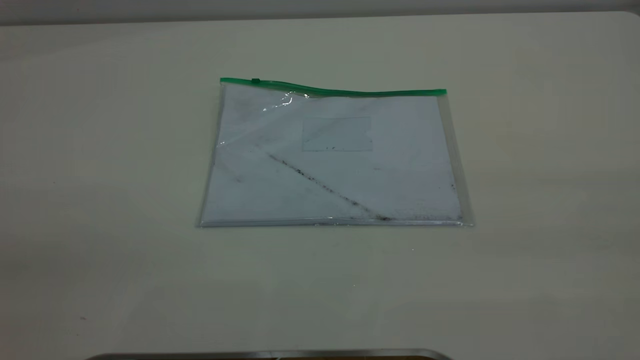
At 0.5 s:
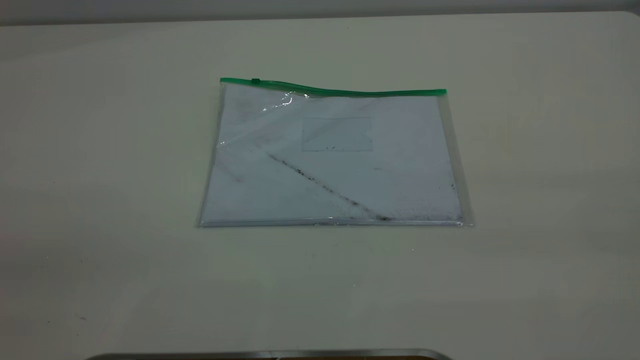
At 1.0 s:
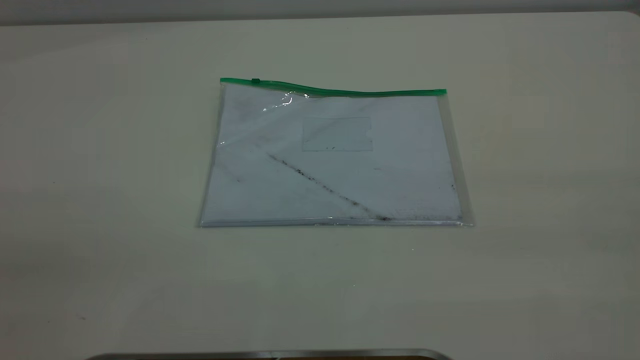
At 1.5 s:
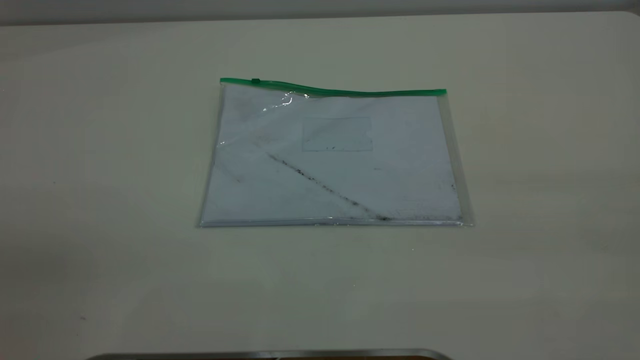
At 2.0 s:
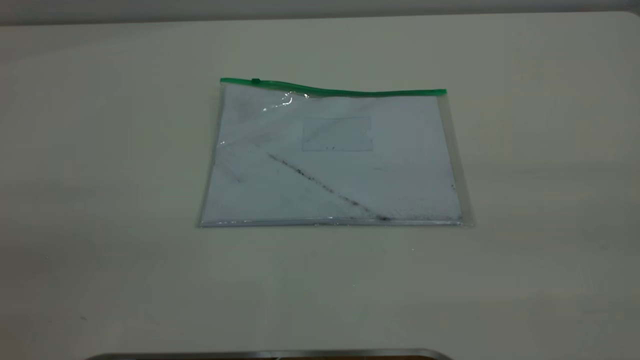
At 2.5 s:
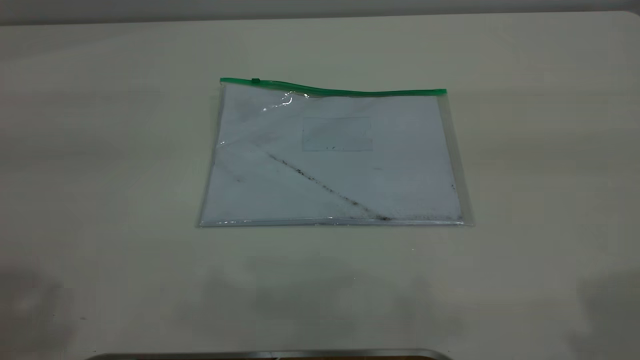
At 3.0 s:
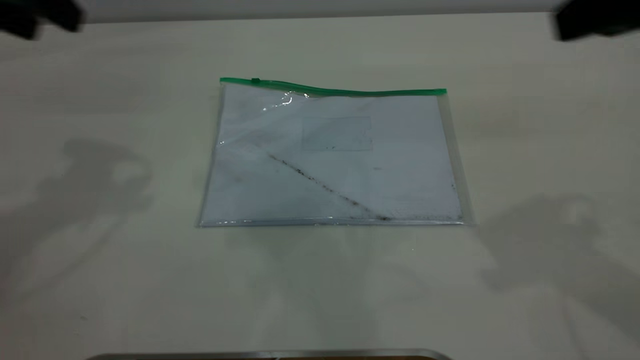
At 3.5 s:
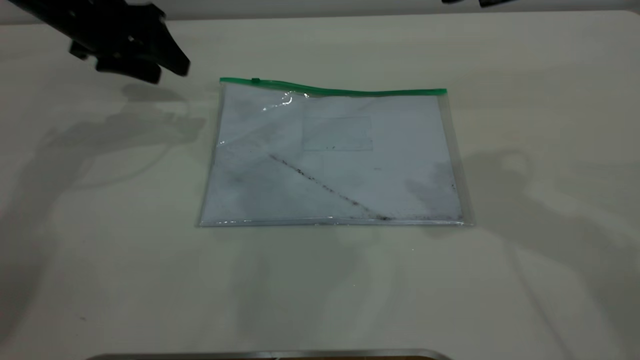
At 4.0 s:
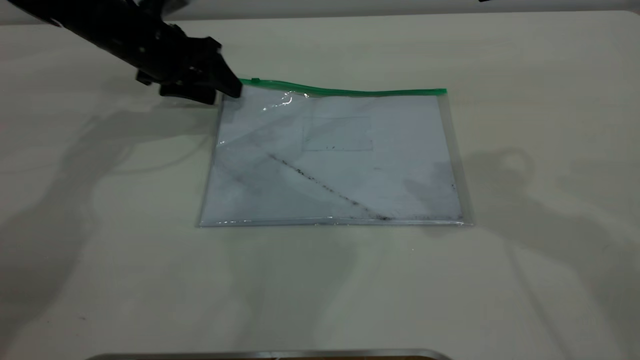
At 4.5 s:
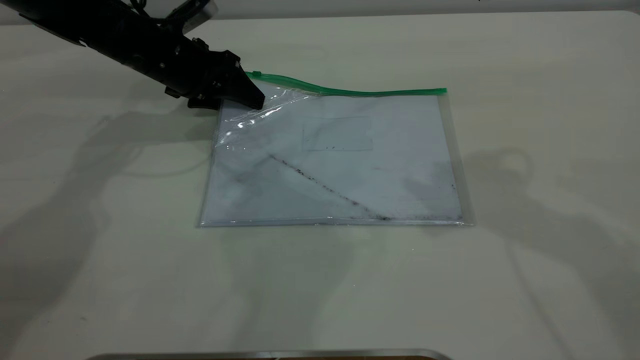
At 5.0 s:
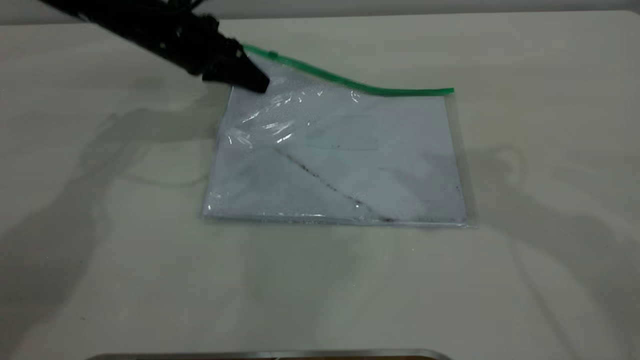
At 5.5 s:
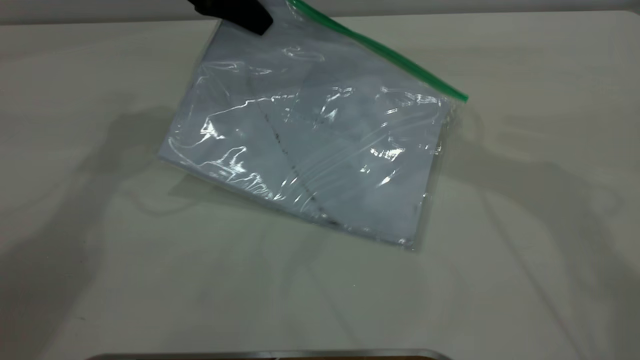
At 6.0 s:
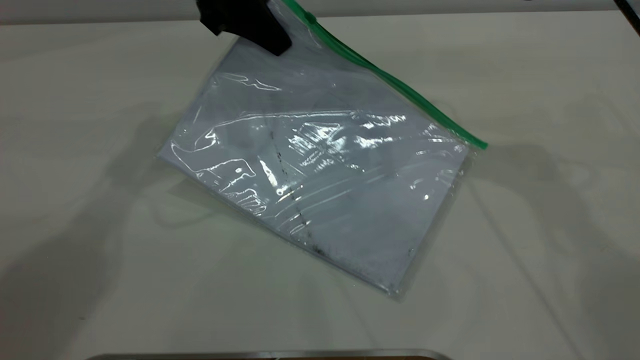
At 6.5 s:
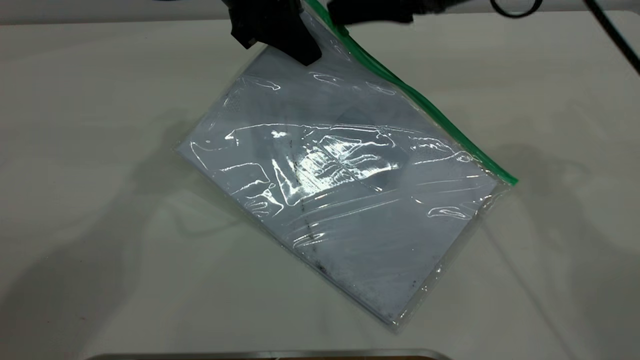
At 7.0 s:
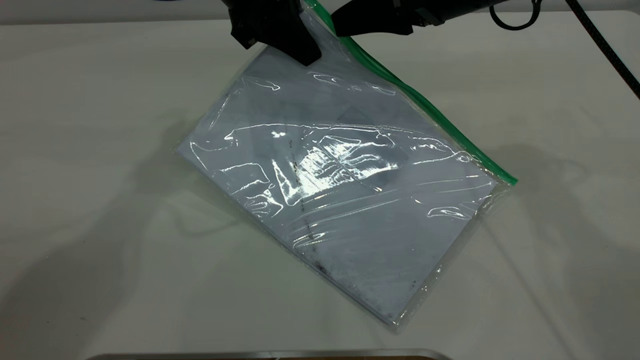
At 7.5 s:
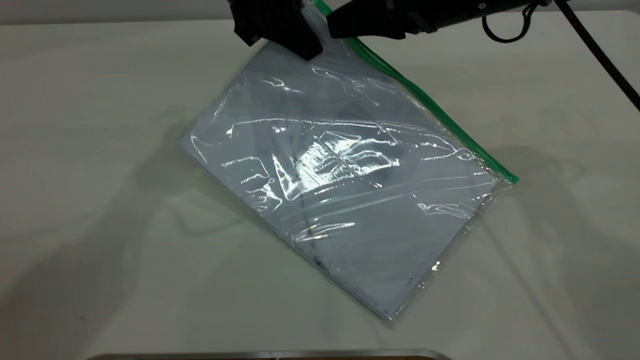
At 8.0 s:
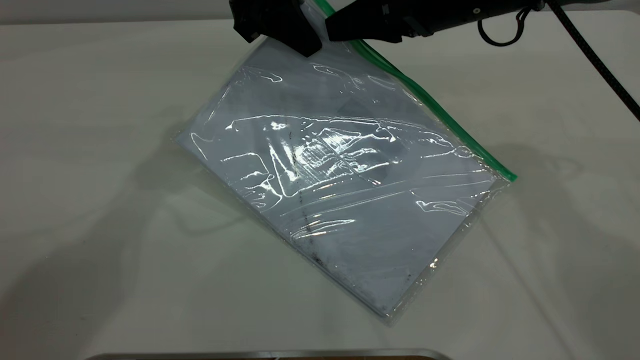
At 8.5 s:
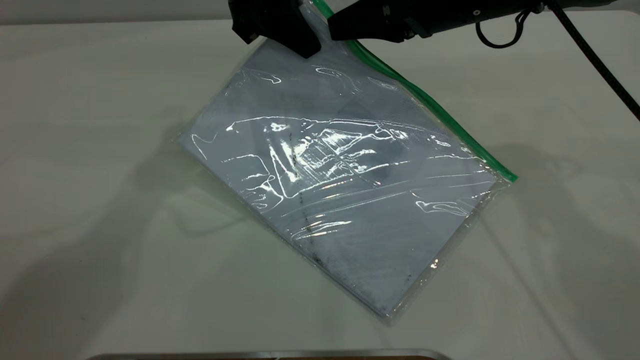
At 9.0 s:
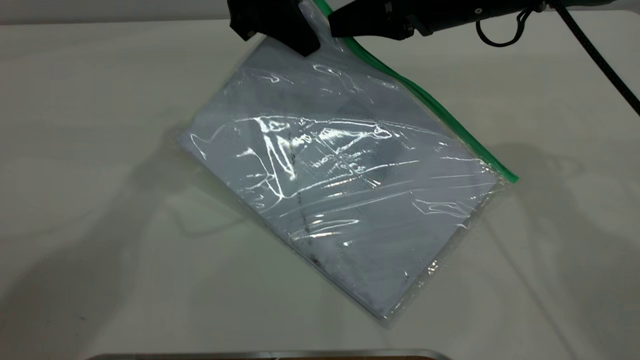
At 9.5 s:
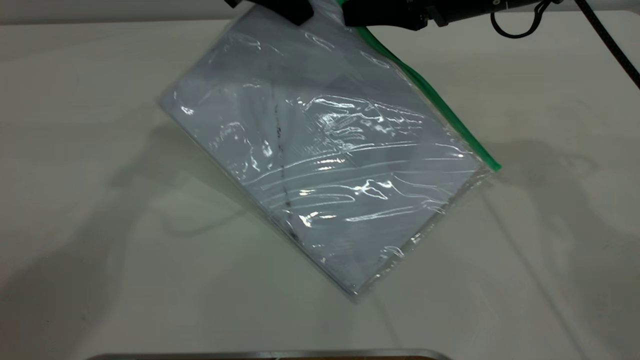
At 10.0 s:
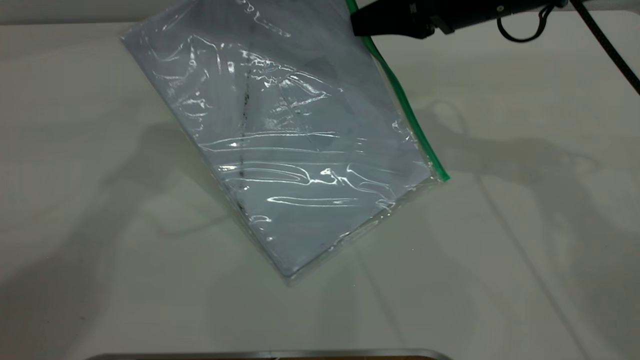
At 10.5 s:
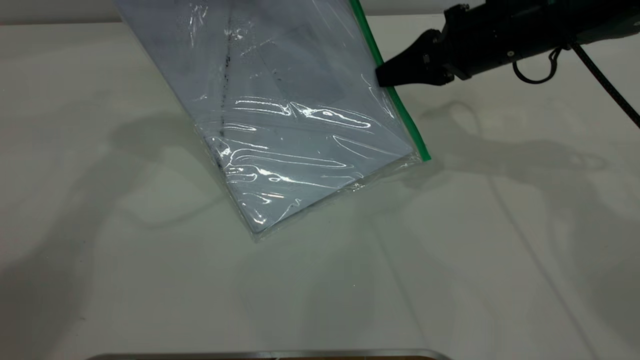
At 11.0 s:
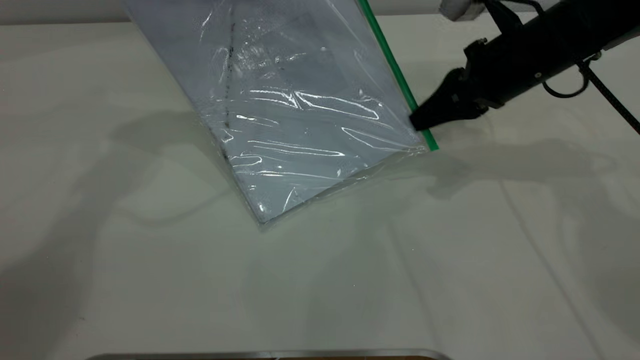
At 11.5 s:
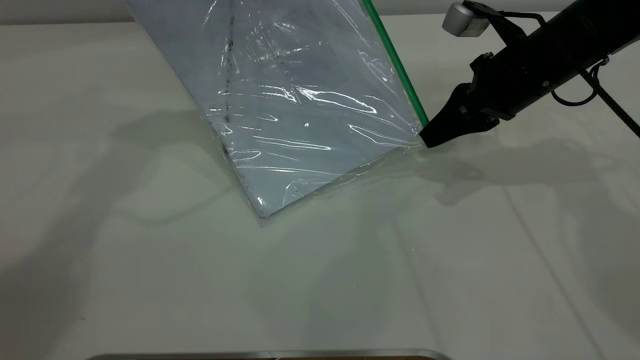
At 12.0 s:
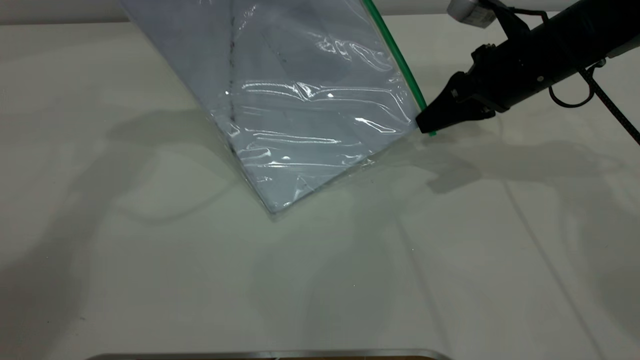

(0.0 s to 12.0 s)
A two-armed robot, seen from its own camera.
Step, 0.0 s - 5.0 s: Pick up the transparent plastic bag with the left gripper.
2.0 s - 4.0 s: The left gripper heads forward and downward, covering about 50 cm. Meanwhile the right gripper goes about 30 cm forward.
4.0 s - 6.0 s: The left gripper travels upward and to the right by roughly 15 cm, and closes its fingers. The right gripper goes approximately 10 cm forward and downward.
6.0 s - 8.0 s: The grippers stay close to where they were, moving slightly.
8.0 s - 10.0 s: The left gripper moves upward, about 5 cm; the right gripper closes.
10.0 s - 12.0 s: The right gripper travels downward by about 5 cm.

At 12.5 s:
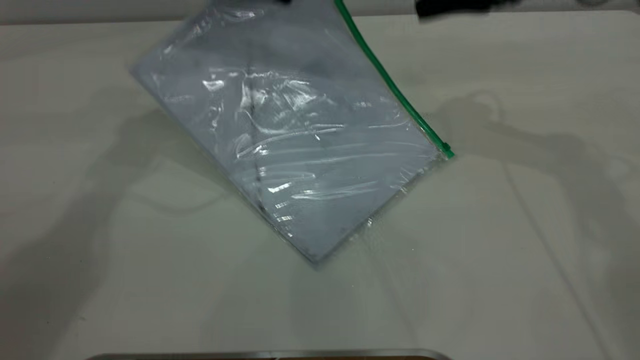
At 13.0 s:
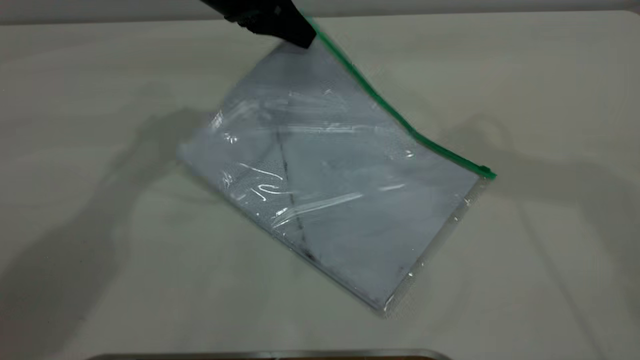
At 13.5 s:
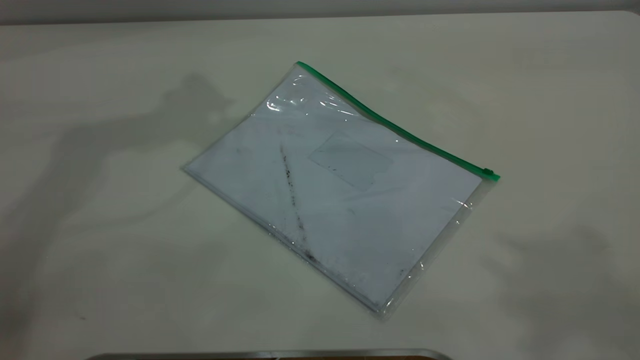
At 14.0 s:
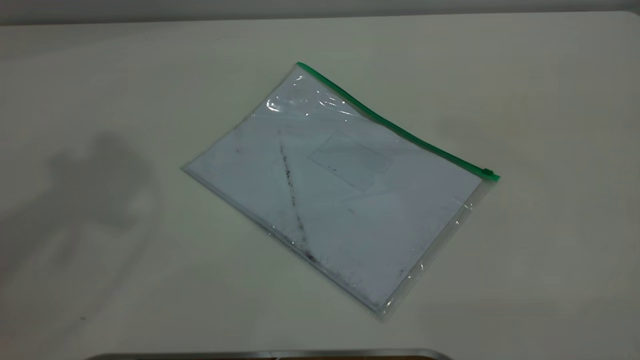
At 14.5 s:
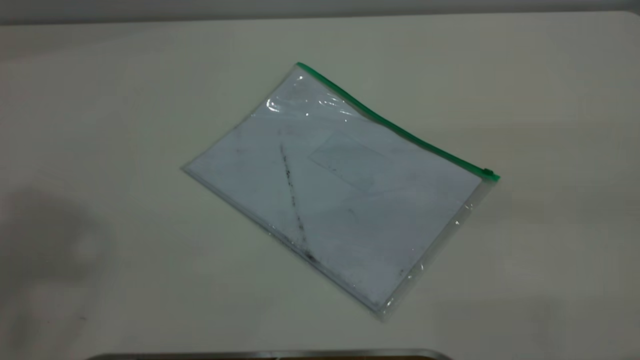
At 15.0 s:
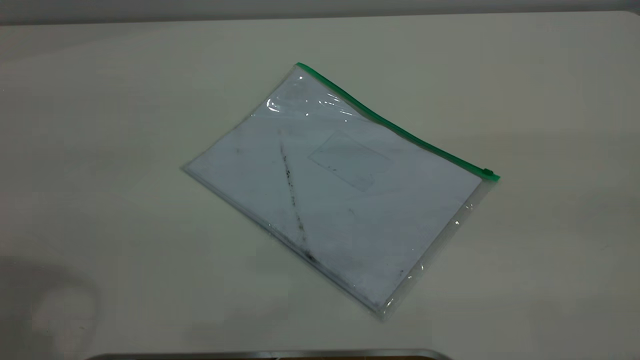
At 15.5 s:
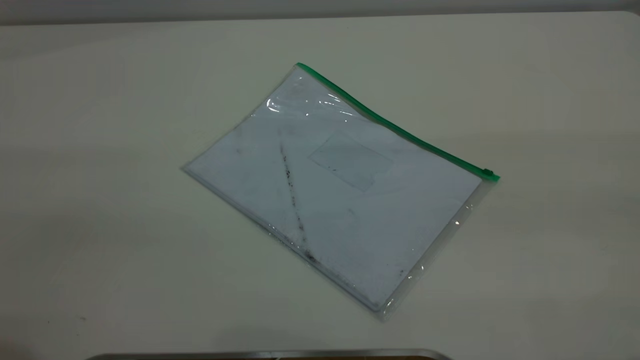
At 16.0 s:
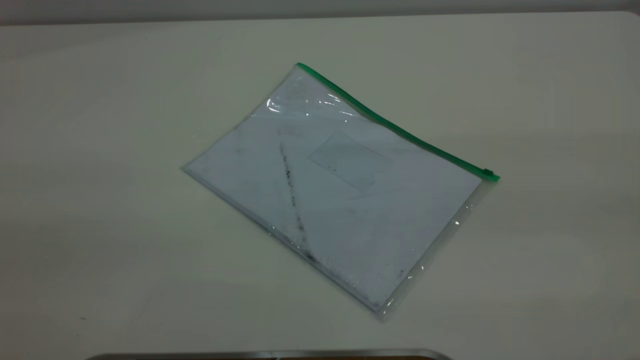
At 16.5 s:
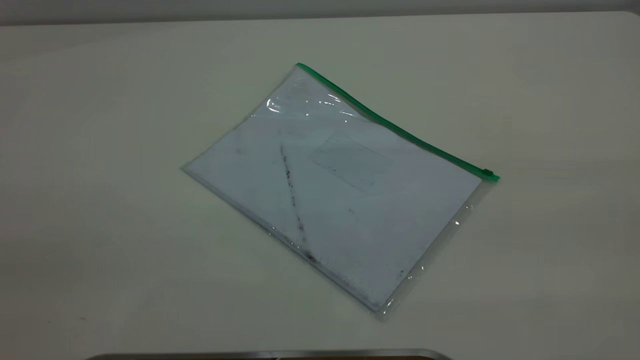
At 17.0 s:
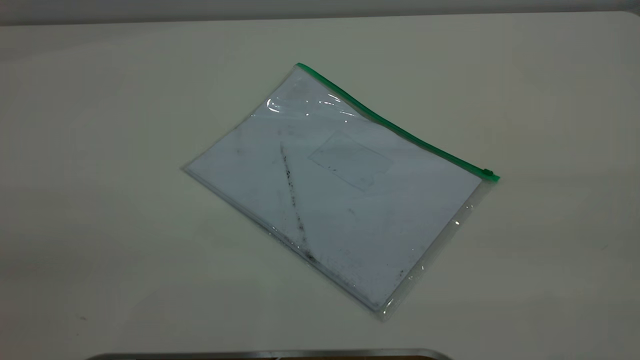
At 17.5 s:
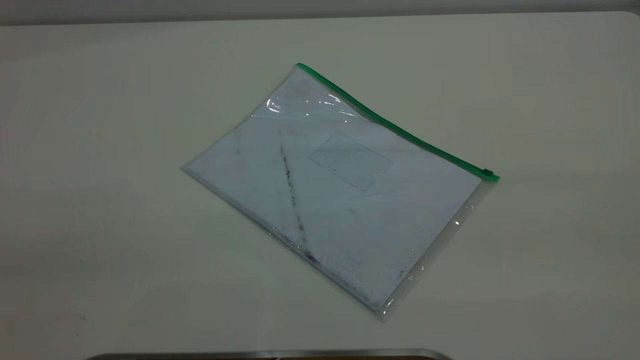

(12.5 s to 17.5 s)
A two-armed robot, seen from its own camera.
Step, 12.5 s - 13.0 s: Place the transparent plastic bag.
12.5 s - 15.0 s: The left gripper goes approximately 35 cm backward, to the left and upward, and opens. The right gripper moves backward, about 35 cm.
